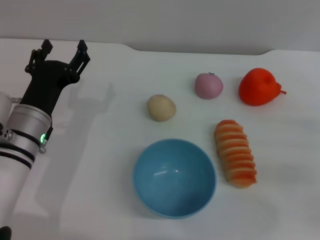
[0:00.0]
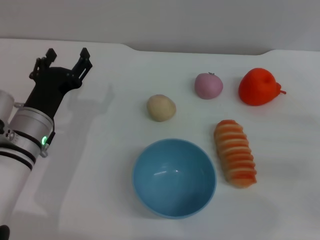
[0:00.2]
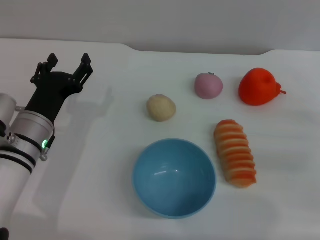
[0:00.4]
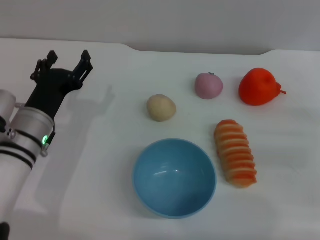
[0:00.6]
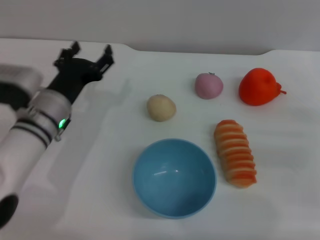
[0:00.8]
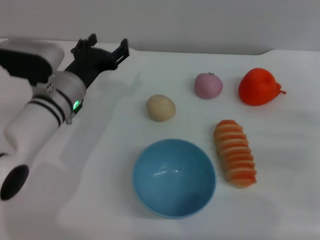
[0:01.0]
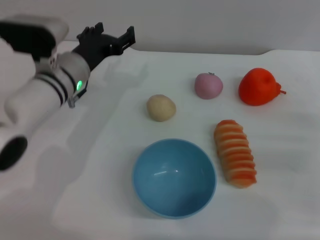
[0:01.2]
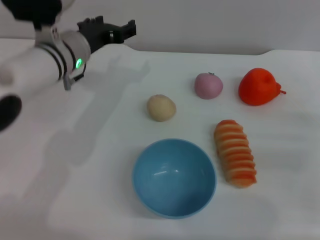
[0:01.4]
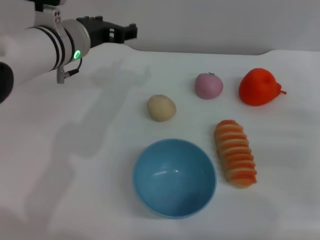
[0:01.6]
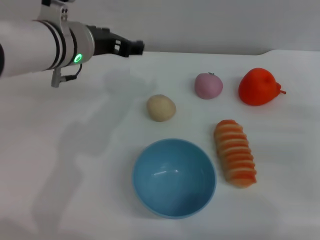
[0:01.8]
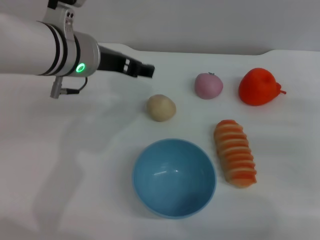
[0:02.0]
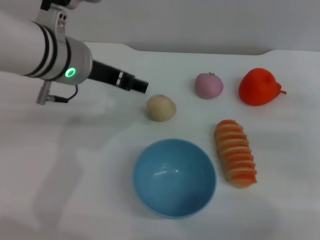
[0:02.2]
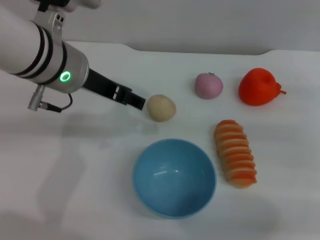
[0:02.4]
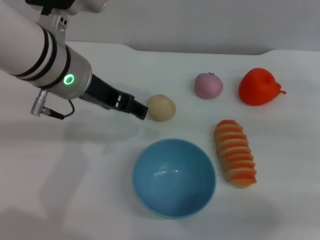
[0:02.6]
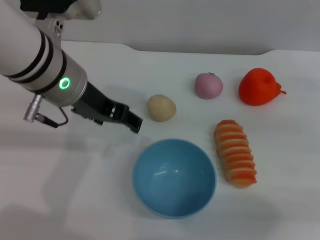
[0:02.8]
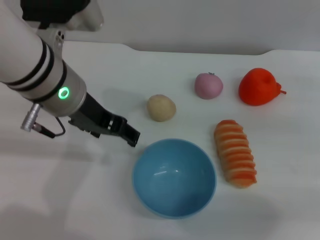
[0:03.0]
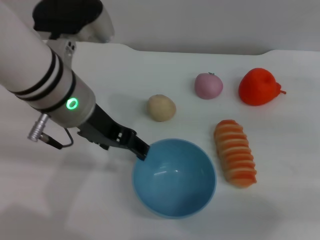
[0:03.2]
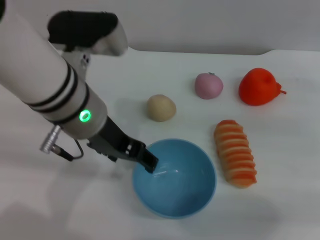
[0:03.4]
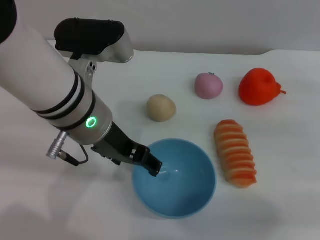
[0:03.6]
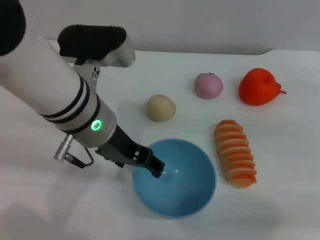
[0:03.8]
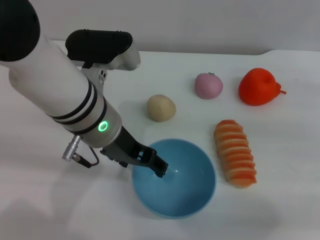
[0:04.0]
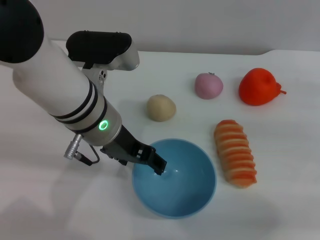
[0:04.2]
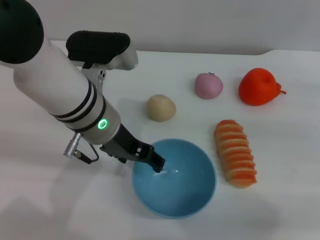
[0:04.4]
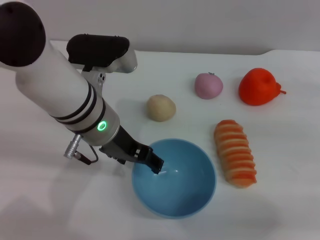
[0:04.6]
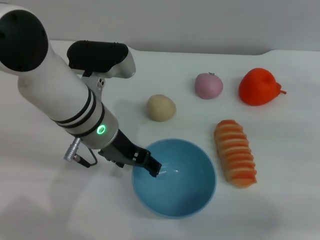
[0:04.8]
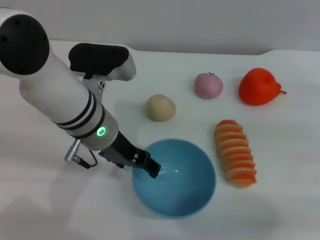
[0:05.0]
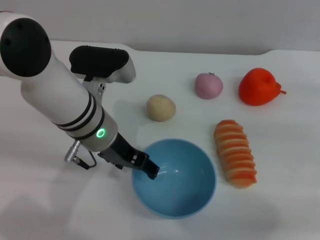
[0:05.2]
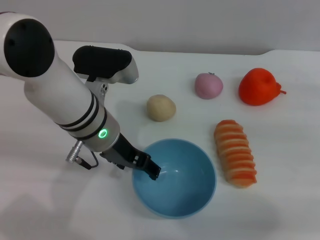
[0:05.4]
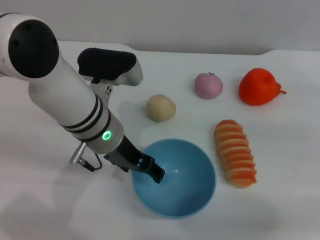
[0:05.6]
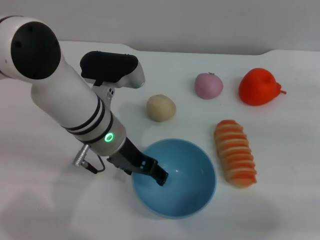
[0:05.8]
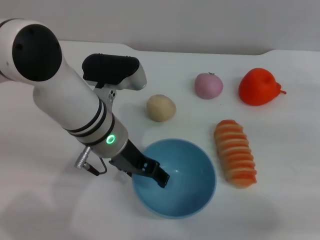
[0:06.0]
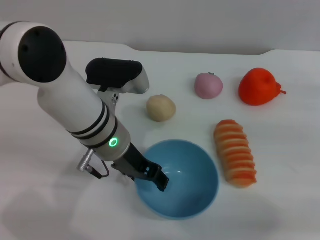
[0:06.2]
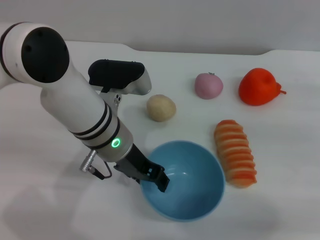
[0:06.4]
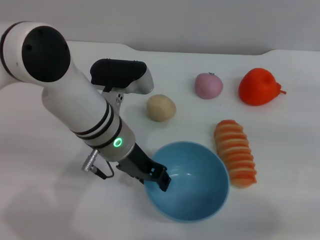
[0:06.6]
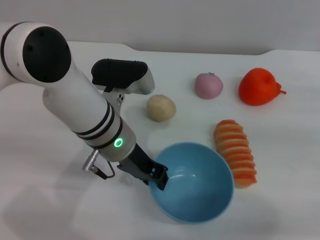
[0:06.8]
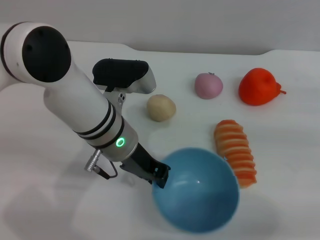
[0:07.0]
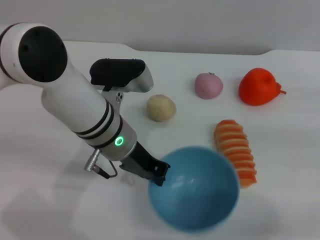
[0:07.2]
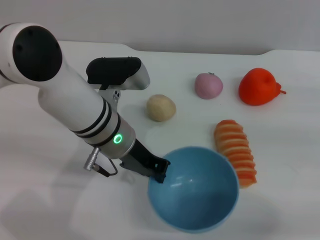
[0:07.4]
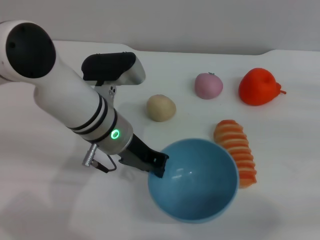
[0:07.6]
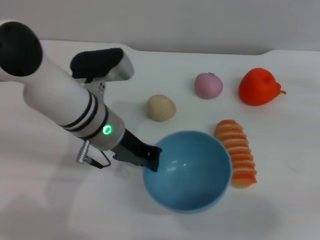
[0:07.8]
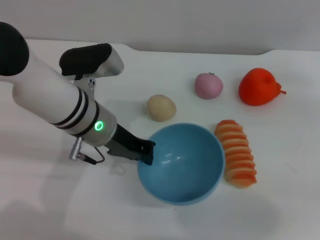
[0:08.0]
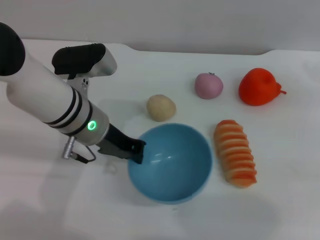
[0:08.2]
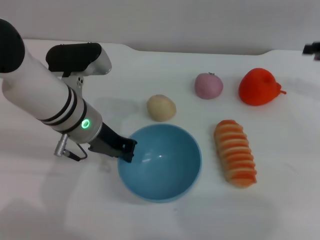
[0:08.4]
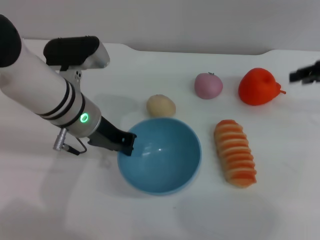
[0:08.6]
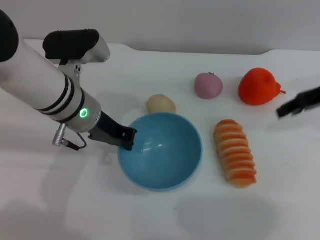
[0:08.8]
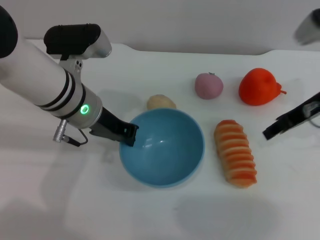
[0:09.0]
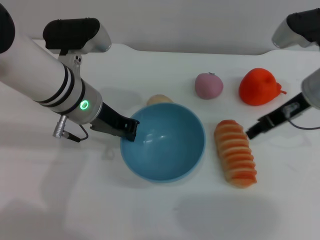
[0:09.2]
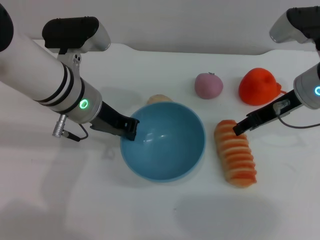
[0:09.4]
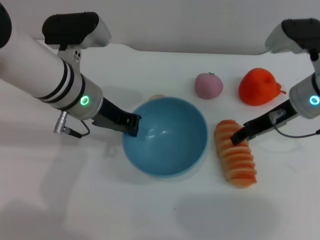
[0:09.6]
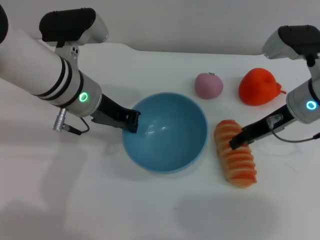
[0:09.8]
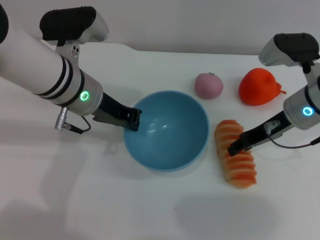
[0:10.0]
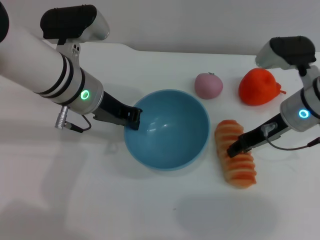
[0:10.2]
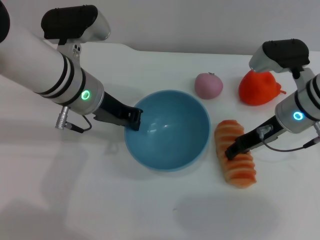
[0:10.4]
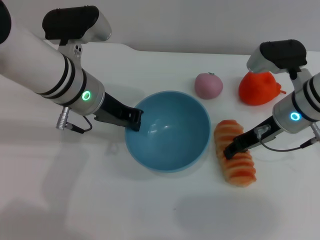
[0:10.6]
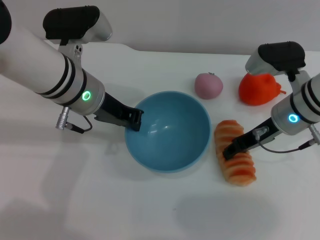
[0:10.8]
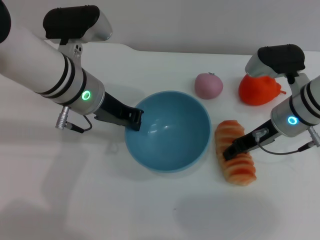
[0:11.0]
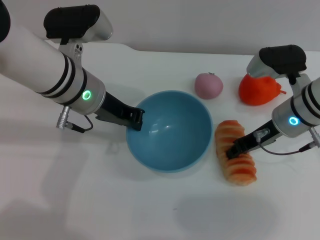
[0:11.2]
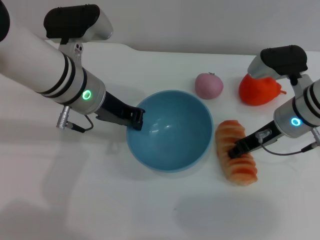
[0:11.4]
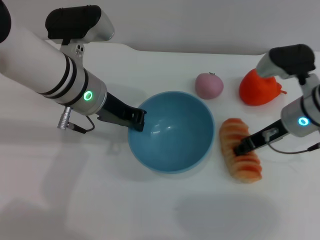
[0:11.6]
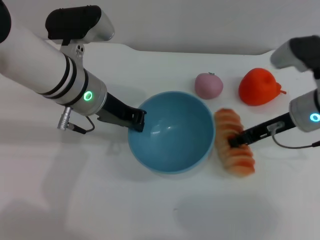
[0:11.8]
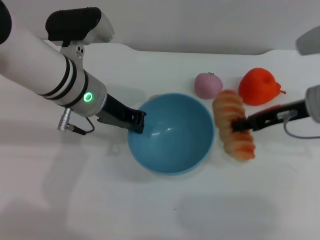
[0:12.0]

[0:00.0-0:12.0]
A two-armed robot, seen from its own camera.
Task of the whole recording: put the bread into the blue bowl and pour it out repeatedly.
Step, 0:00.0 to 0:08.8: Pick up the bowl with the left gripper.
0:00.0 to 0:01.6: The left gripper is displaced upward, forward and to the right by approximately 15 cm.
0:01.6 to 0:03.0: The left gripper moves backward and upward, some 10 cm. The right gripper goes roughly 10 cm upward and forward.
0:03.0 to 0:04.4: The left gripper shifts roughly 5 cm downward.
0:04.4 to 0:06.0: There are only small adjustments of the grippers.
0:06.0 to 0:07.6: The left gripper closes its fingers.
0:07.6 to 0:09.0: The left gripper shifts by approximately 5 cm; the right gripper moves to the left and upward, approximately 15 cm.
0:09.0 to 0:10.4: The right gripper moves downward, approximately 5 cm.
0:10.4 to 0:12.0: The right gripper changes place by roughly 5 cm, and closes its fingers.

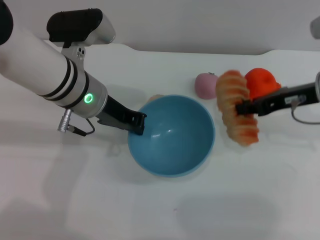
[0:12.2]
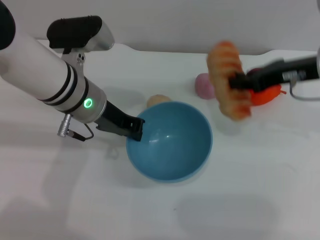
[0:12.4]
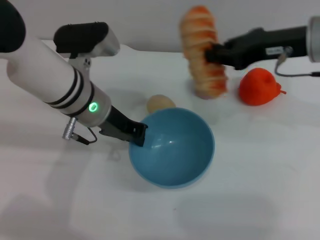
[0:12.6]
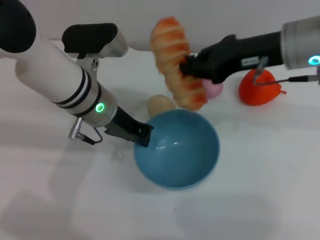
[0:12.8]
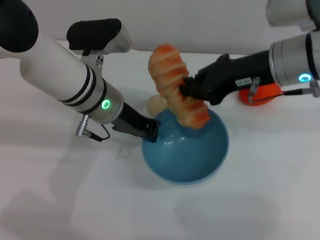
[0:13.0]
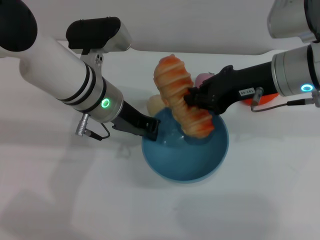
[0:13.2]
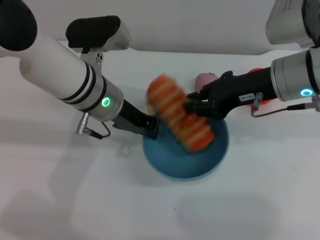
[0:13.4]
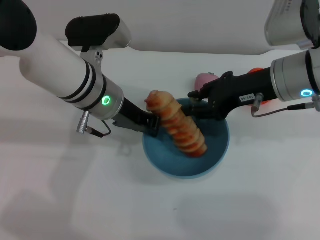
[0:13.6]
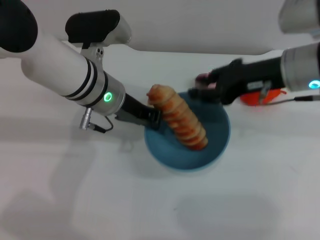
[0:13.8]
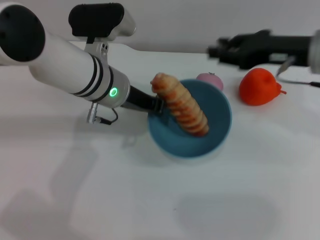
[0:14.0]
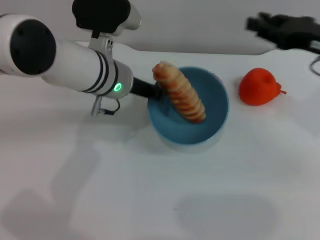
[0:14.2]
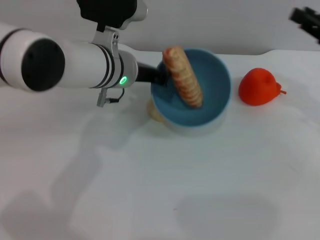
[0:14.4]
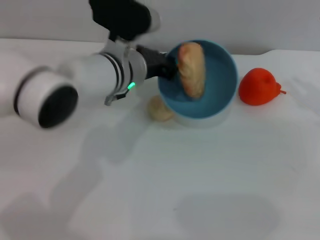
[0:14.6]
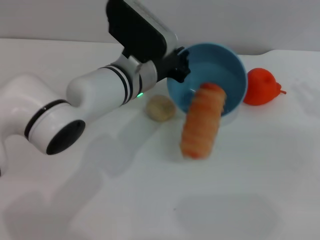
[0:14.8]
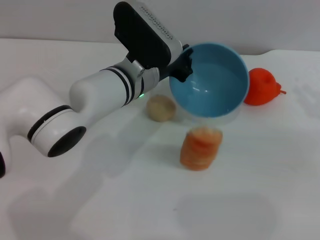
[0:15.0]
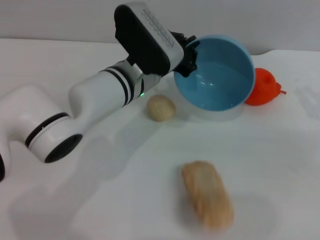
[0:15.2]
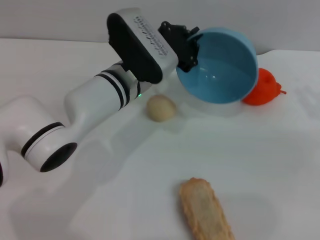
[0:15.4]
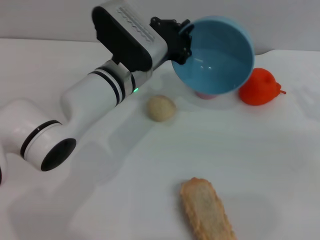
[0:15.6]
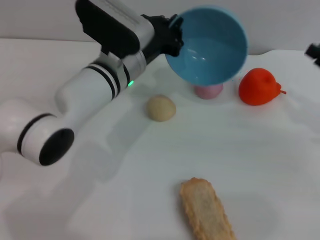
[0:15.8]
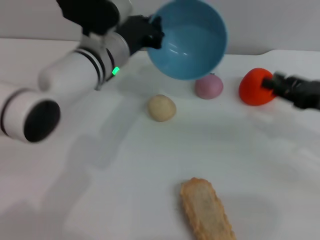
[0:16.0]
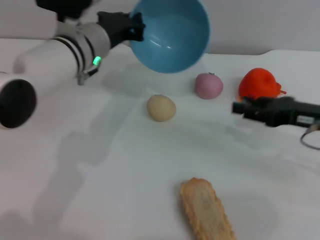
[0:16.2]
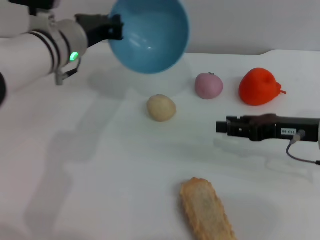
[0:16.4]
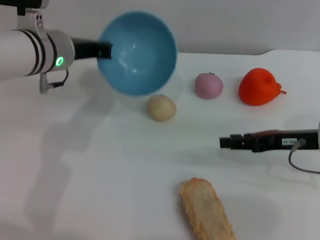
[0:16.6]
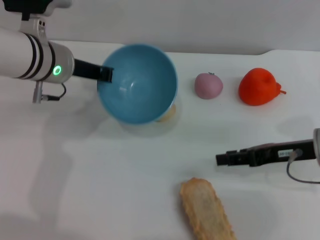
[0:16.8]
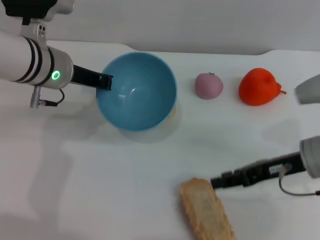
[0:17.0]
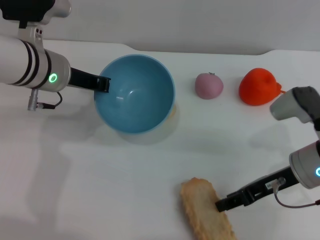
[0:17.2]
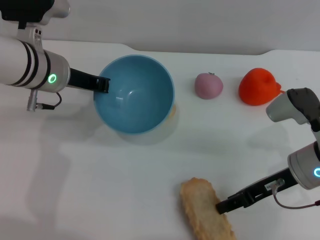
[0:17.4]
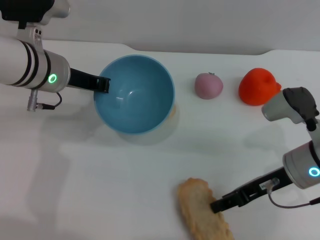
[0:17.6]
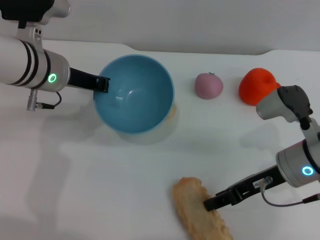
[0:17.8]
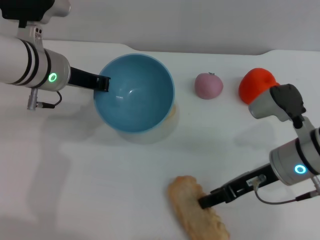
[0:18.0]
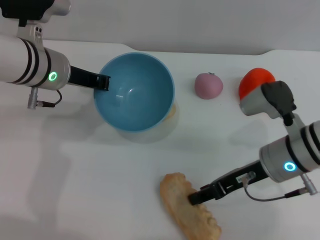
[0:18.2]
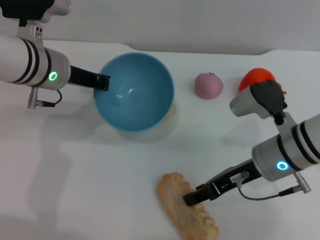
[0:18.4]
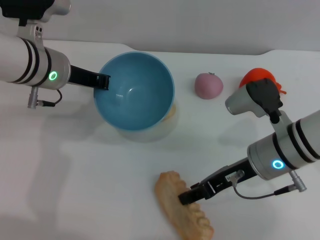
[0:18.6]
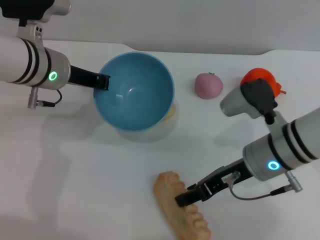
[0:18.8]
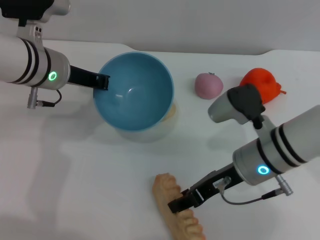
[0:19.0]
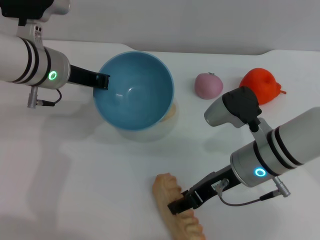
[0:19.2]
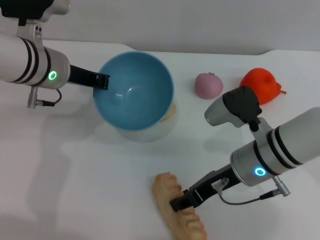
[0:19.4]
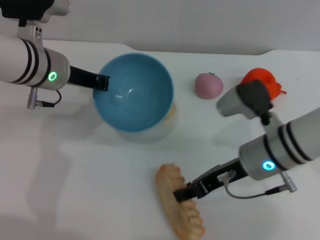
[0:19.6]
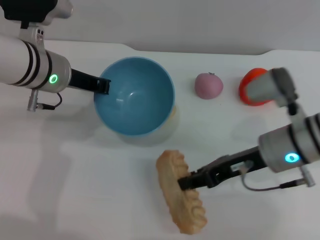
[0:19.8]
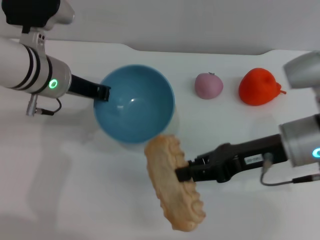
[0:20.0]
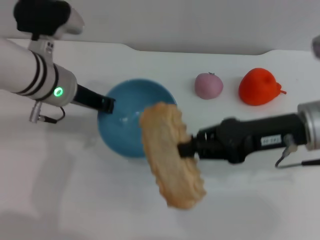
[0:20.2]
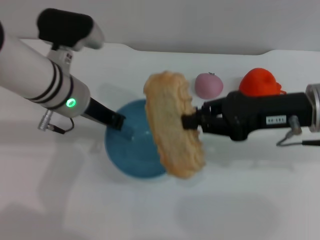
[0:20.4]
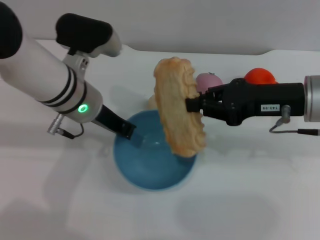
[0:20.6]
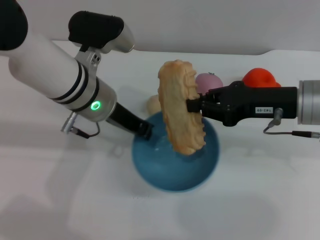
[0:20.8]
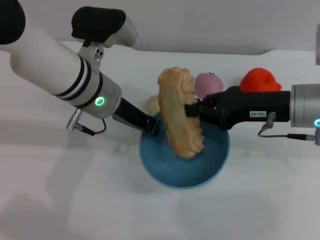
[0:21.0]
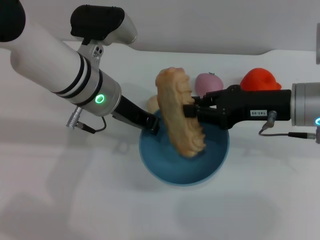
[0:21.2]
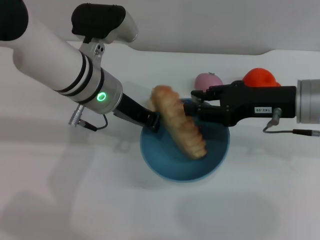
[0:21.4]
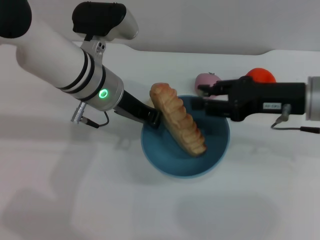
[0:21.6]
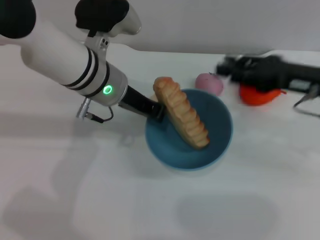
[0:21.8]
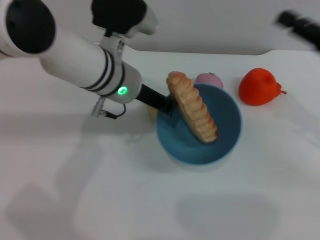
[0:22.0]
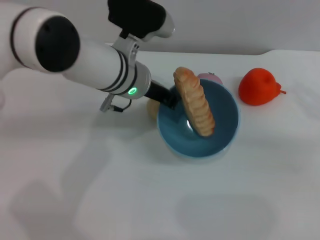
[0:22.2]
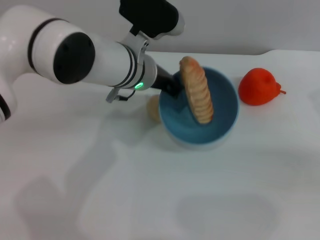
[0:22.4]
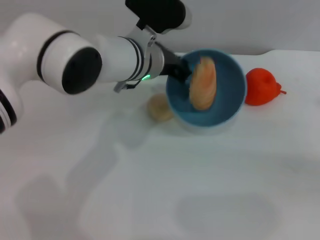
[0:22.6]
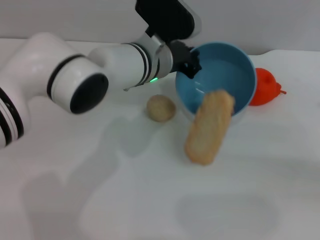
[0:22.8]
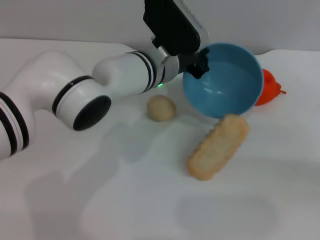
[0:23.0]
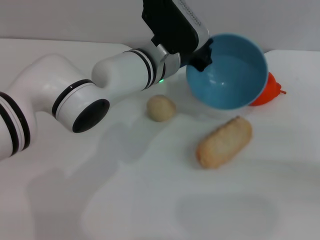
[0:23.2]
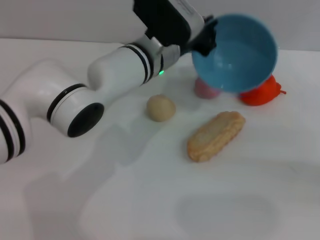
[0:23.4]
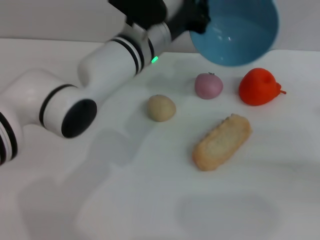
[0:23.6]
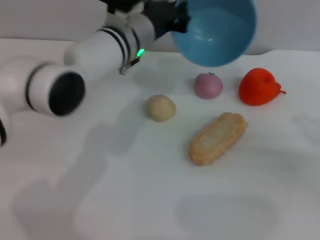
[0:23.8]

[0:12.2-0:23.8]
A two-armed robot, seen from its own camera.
Task of the whole recording: put the bread into the blue bowl and pour it out repeatedly.
Step, 0:12.6 to 0:13.8: Place the bread into the bowl.
Step, 0:14.0 to 0:15.2: Pour the bread out of the bowl.
Step, 0:15.4 to 0:20.2: Pick up the bread with the right gripper.
Step, 0:20.4 to 0:21.6: Place the bread into the bowl.
Step, 0:22.0 to 0:23.4: Pour the bread out of the bowl.
0:12.2 to 0:13.6: The right gripper is displaced to the left by roughly 5 cm.
0:13.6 to 0:15.0: The left gripper changes place by some 5 cm, while the right gripper moves to the right, about 20 cm, and opens up.
0:15.0 to 0:16.6: The right gripper travels to the left by roughly 10 cm; the left gripper goes roughly 10 cm to the left and upward.
0:16.6 to 0:18.0: The right gripper goes some 5 cm to the left.
0:18.0 to 0:19.4: The right gripper moves to the left, about 5 cm.
0:19.4 to 0:21.0: The right gripper moves to the right and upward, about 10 cm, and closes; the left gripper is displaced to the right by approximately 5 cm.
0:21.0 to 0:22.4: The right gripper goes roughly 15 cm to the right, and opens up. The left gripper moves to the right, roughly 5 cm.
